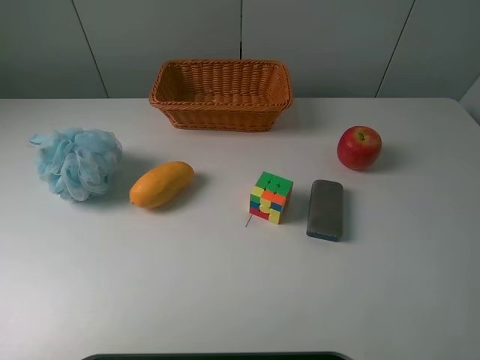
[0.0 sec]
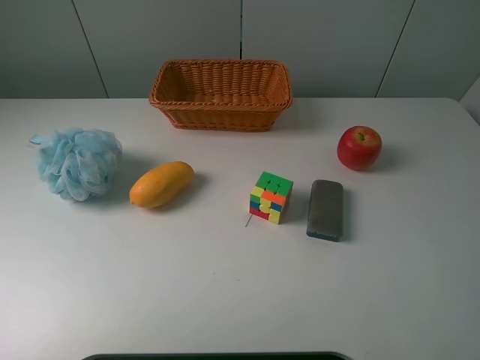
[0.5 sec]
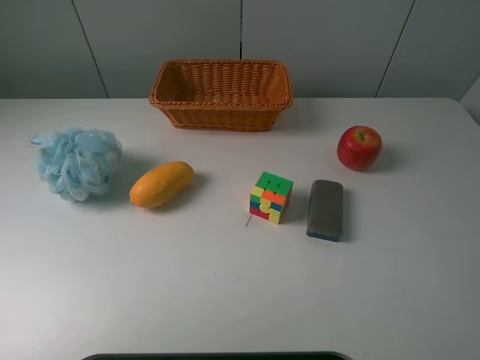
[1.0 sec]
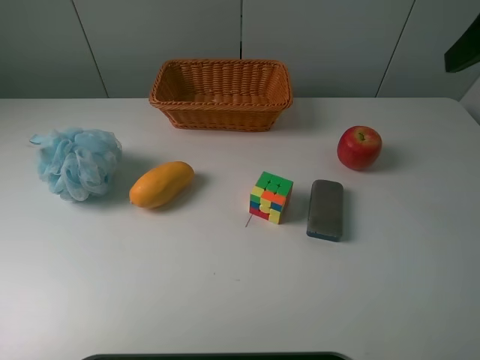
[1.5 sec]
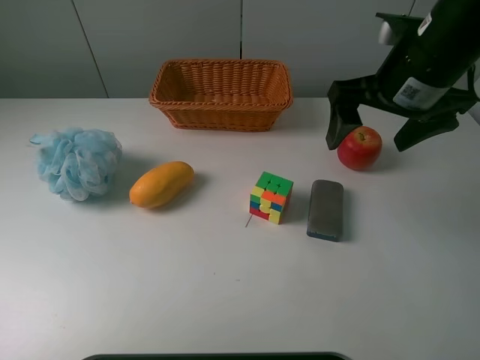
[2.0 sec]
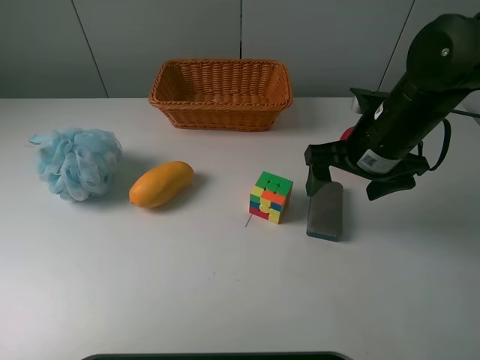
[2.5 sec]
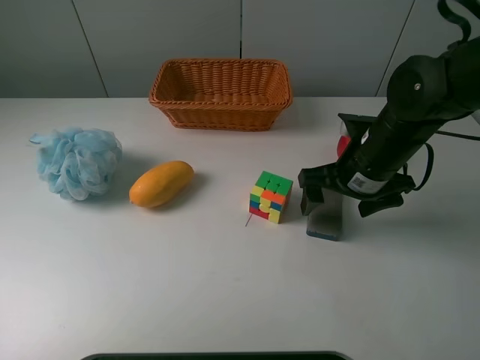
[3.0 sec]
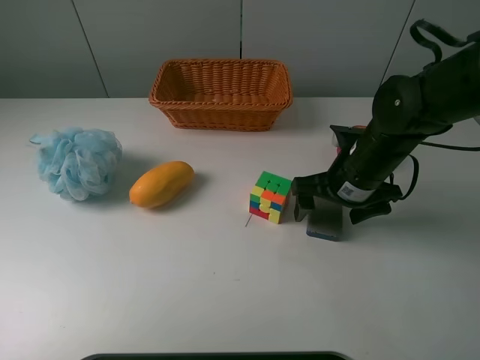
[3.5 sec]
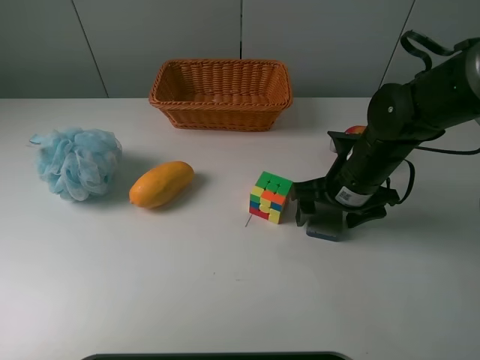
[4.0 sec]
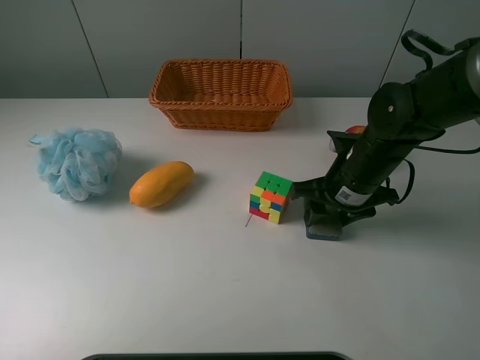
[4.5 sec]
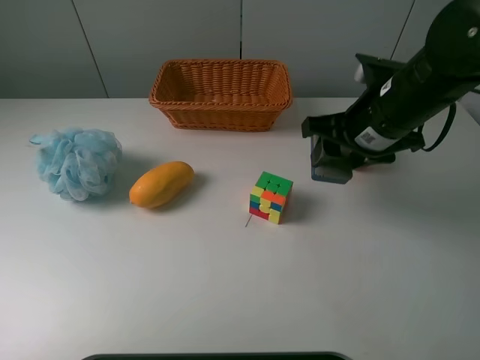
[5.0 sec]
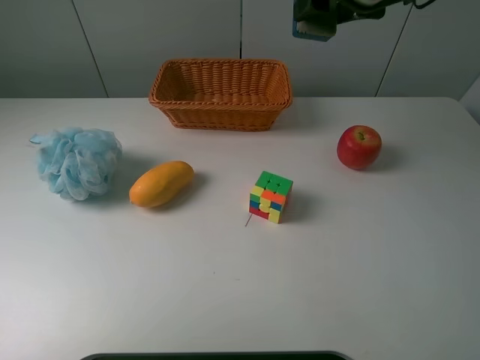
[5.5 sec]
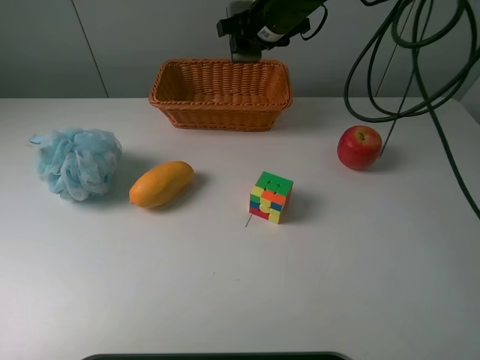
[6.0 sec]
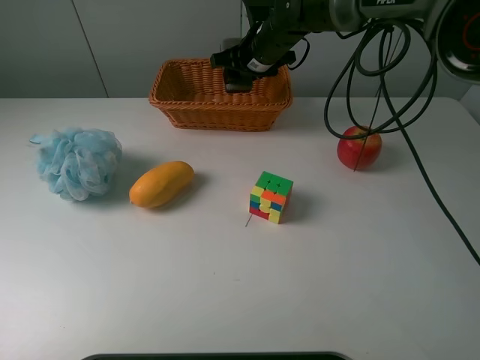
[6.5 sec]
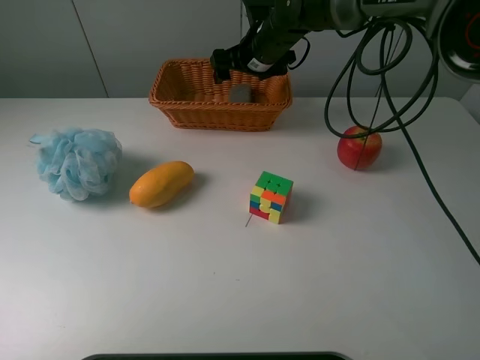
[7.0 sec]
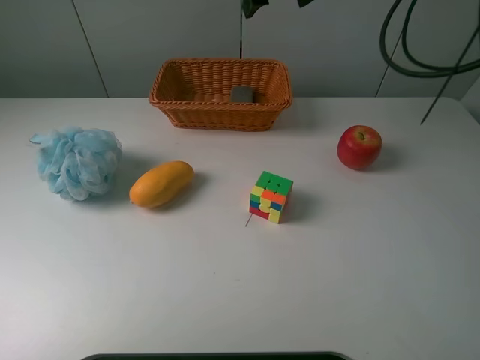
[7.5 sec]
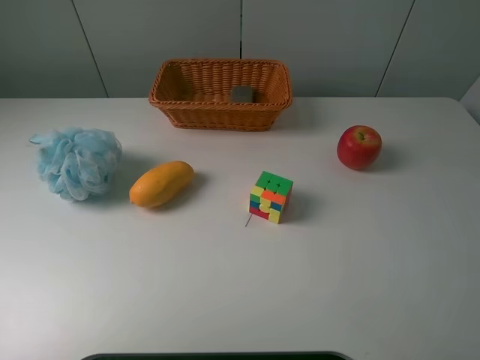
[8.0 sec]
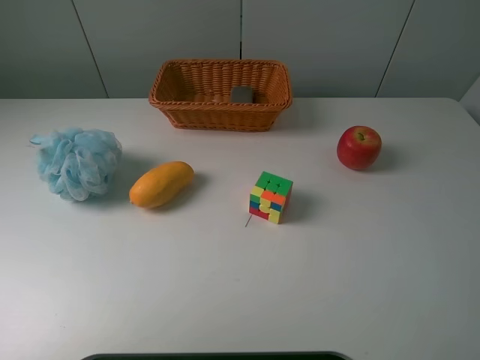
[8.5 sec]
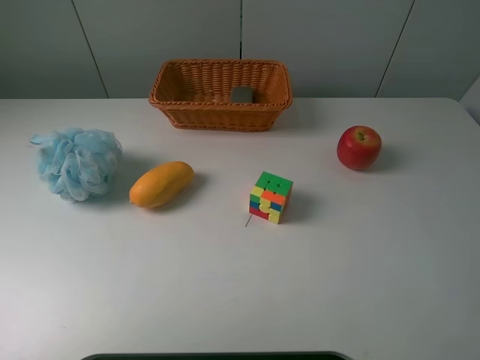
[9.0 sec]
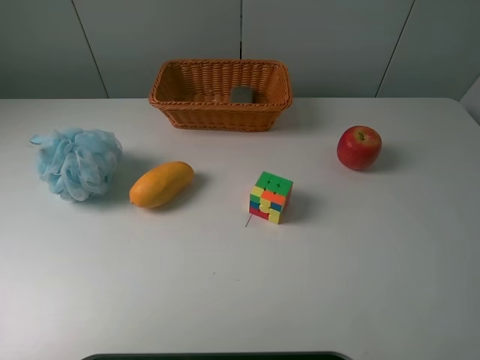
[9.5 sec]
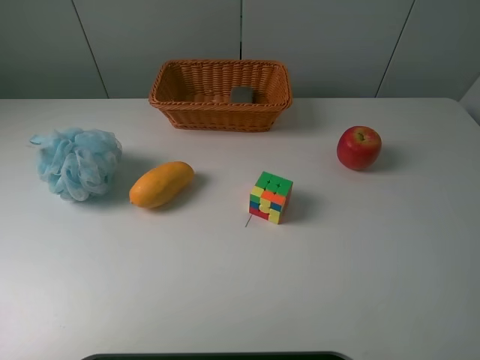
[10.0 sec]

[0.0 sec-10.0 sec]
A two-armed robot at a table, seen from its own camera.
Task of the whole recording: use a picker to grab the item closest to the cube and place it in the basket.
Step, 0.0 sec to 4.0 sec: Grasp the blackboard erasure with the right gripper.
Step, 4.5 sec to 7.0 sec: Place the blackboard erasure into the basket with the right gripper.
0.0 sec to 2.0 sec: The right gripper heads forward, covering about 25 cm.
2.0 sec to 4.0 sec: The right gripper travels downward by some 15 cm, and closes up.
4.0 sec to 6.0 sec: The right gripper shifts roughly 25 cm forward, upward and to the left, and closes its fingers.
6.0 sec to 8.0 sec: The right gripper travels upward, to the right and backward by about 40 cm, and opens its fingers.
